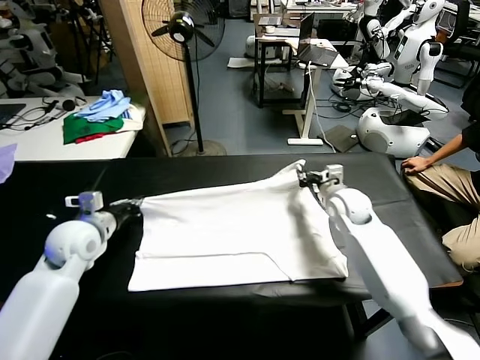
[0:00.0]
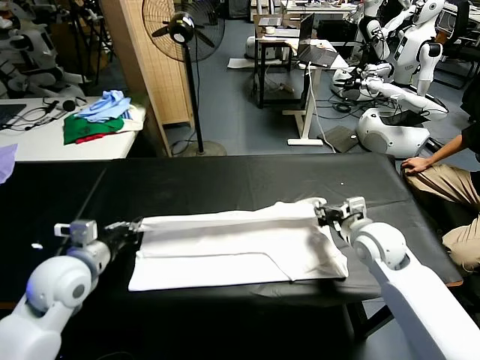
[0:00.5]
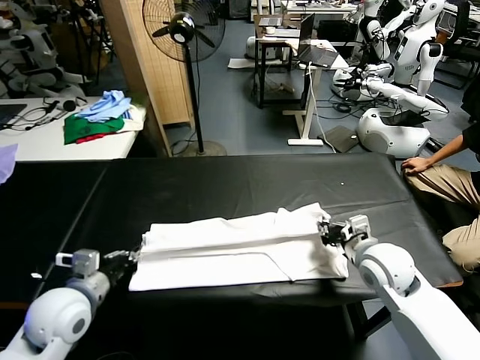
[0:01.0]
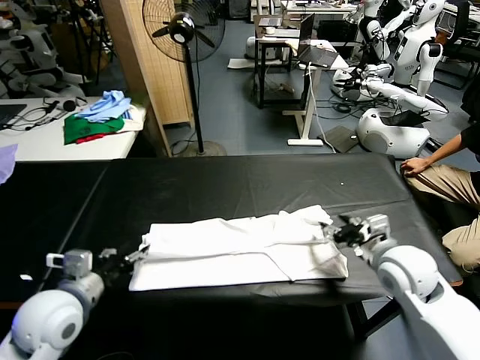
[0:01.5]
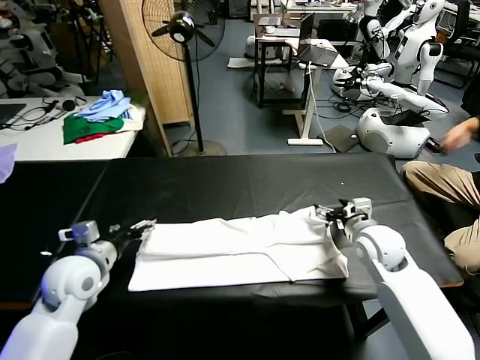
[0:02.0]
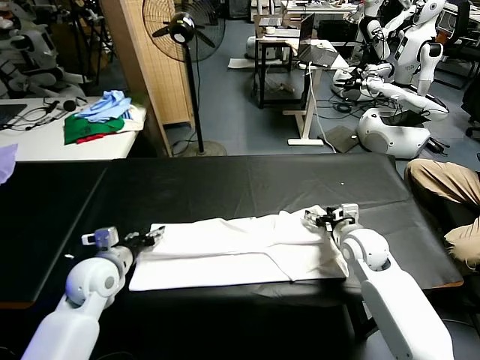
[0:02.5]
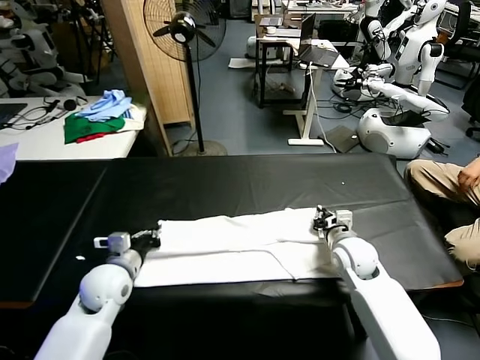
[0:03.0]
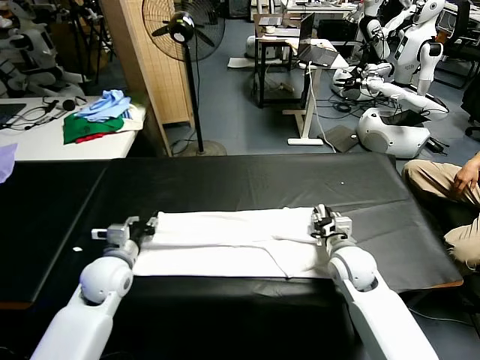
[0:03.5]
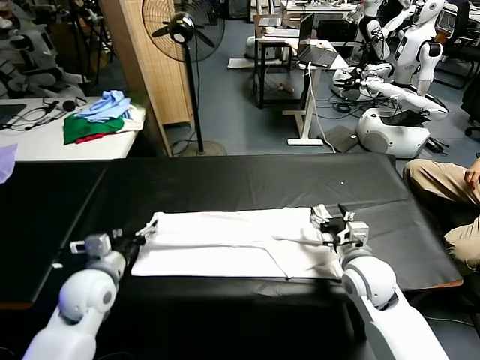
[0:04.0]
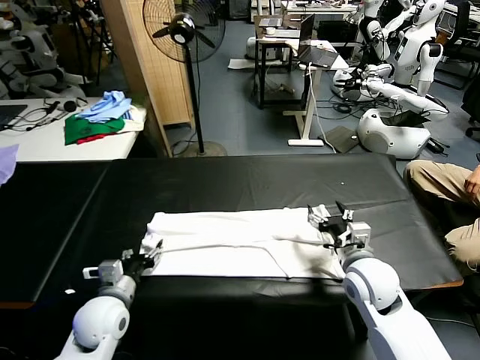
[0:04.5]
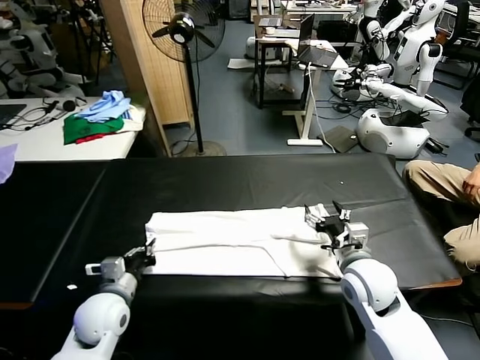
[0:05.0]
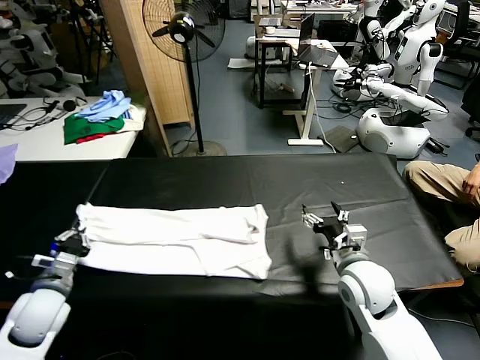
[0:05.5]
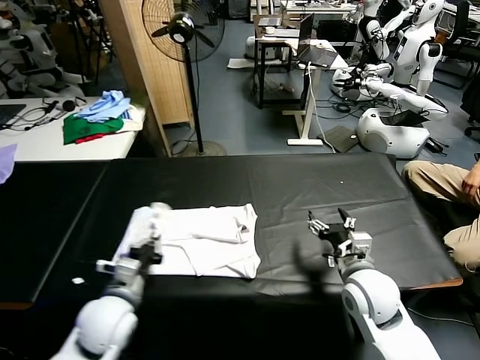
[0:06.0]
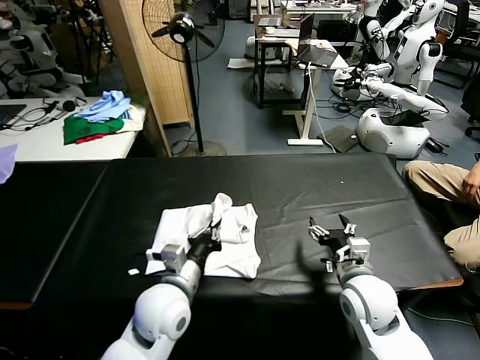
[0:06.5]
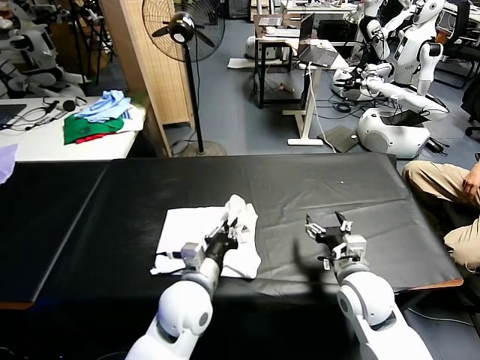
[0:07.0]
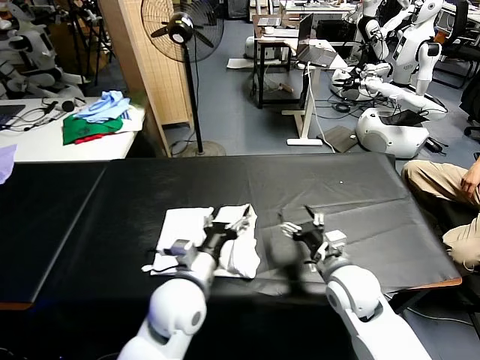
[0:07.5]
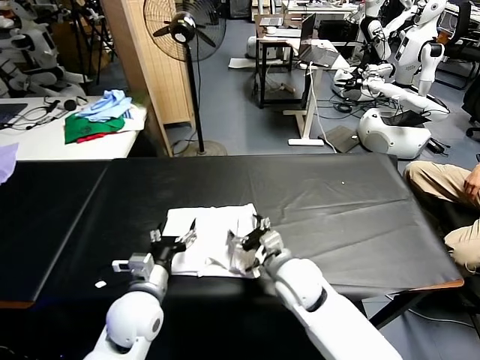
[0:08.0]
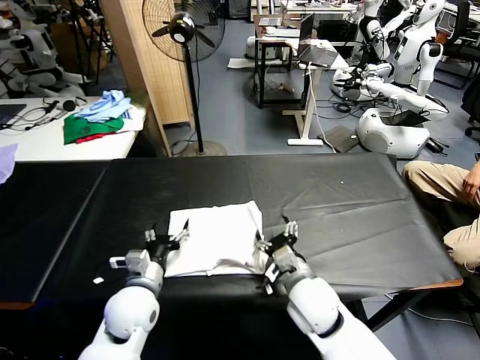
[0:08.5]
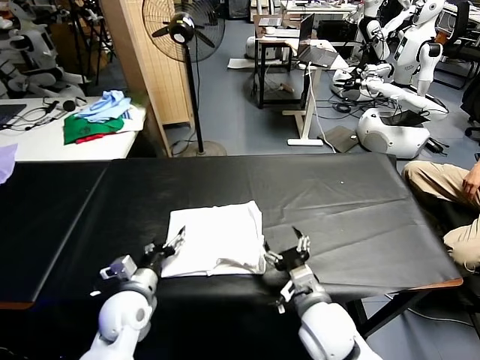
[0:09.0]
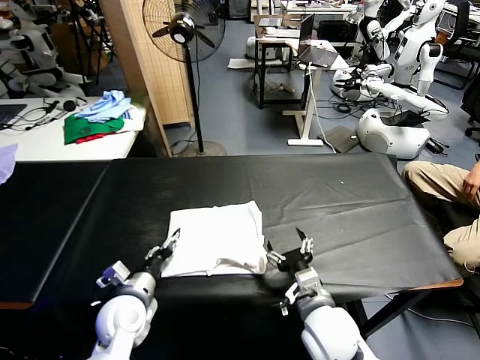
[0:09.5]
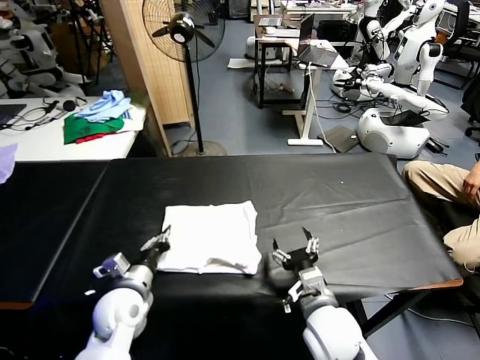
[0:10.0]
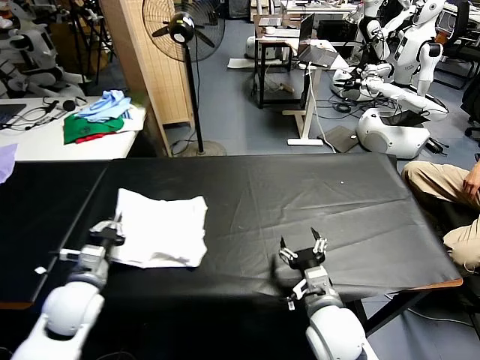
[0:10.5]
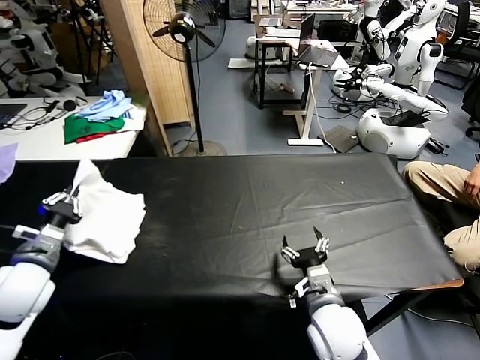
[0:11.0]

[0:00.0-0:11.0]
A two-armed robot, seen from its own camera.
Task of the whole recording: fold and organize the clothes.
Step, 0:01.5 to 0:04.5: use the left gripper to clamp the left edge of the fabric.
Step, 0:05.0 to 0:07.0: use the left gripper to drag the left edge of the fabric to the left and folds it over the right edge.
0:00.0 to 0:02.0: The right gripper travels backward and back again, approximately 10 cm each way, and opens up; the left gripper moves roughly 10 cm backward and comes back, and opens its fingers.
0:02.0 to 0:03.5: The left gripper is displaced downward by about 5 cm, and closes, then opens again, while the right gripper changes place by approximately 5 cm, and closes, then opens again.
0:03.5 to 0:05.5: The right gripper travels backward by roughly 5 cm; the left gripper heads to the left and backward, covering about 10 cm, and closes.
0:05.5 to 0:07.5: The left gripper heads to the right, covering some 30 cm, and opens.
0:07.5 to 0:09.0: The right gripper heads backward, covering about 10 cm. Meanwhile the left gripper moves to the left and downward, about 15 cm.
0:09.0 to 0:11.0: The left gripper heads to the left and upward, covering approximately 20 cm, and closes its fingers.

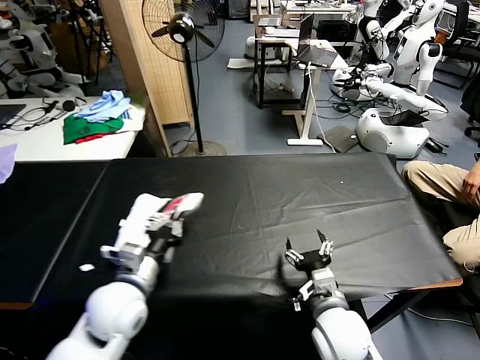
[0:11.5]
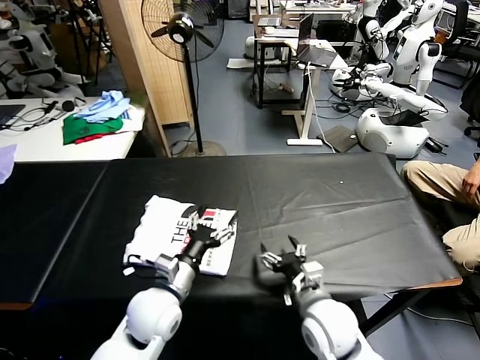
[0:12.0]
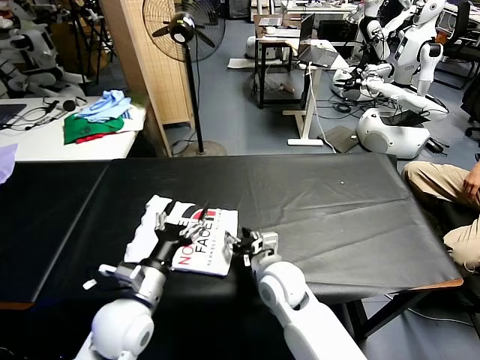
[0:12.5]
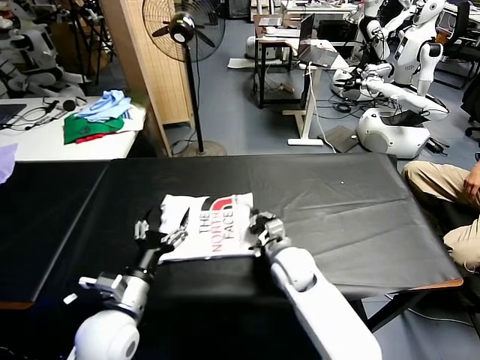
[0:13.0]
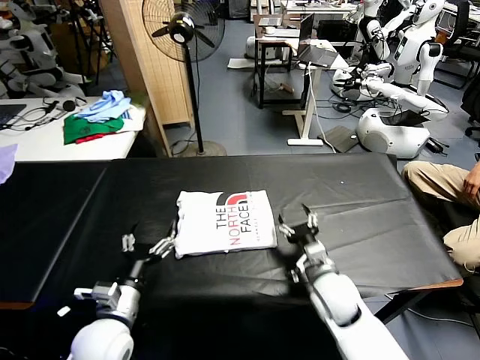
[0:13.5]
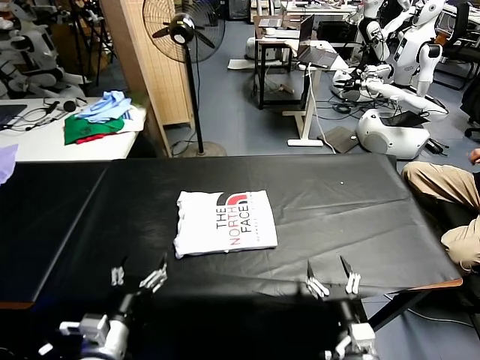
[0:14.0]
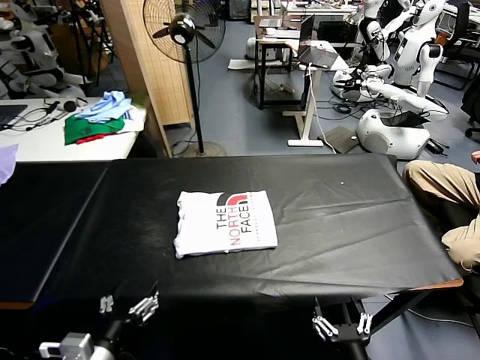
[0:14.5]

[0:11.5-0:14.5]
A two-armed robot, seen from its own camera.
Task of the whole recording: fold and organize the clothes.
Step, 0:12.0 to 0:13.0: Drag the clothes to the center of the table.
0:11.5 to 0:13.0: The right gripper travels forward and to the left by some 15 cm, and closes its fingers. The left gripper opens its fingers.
0:13.0 to 0:14.5: The left gripper is displaced backward by roughly 10 cm. The right gripper goes about 30 cm backward, and opens its fingers.

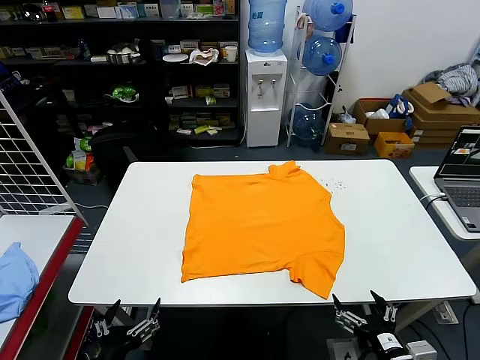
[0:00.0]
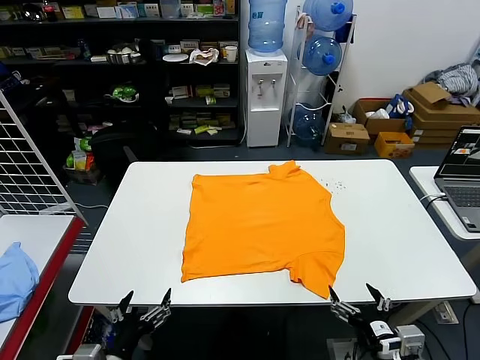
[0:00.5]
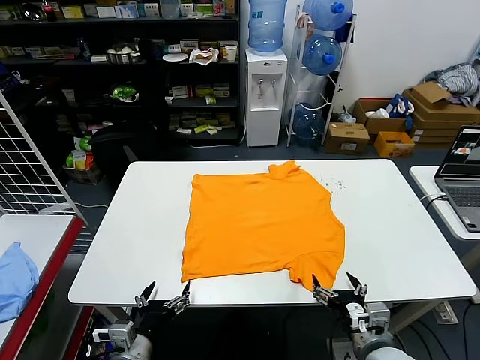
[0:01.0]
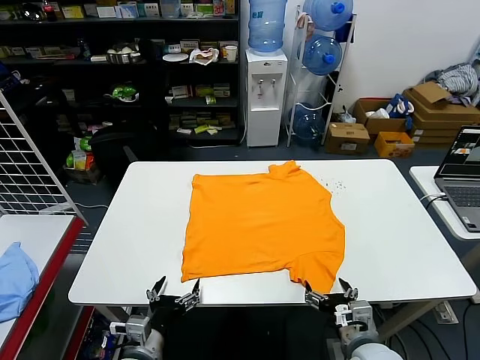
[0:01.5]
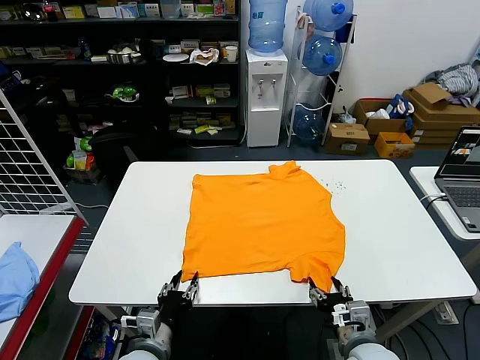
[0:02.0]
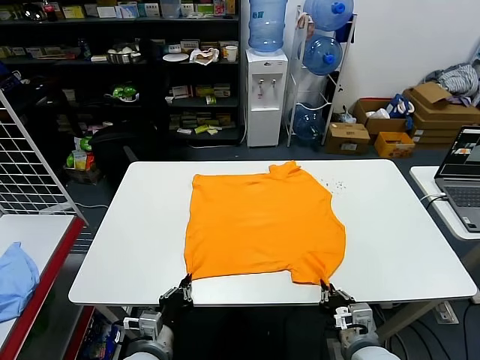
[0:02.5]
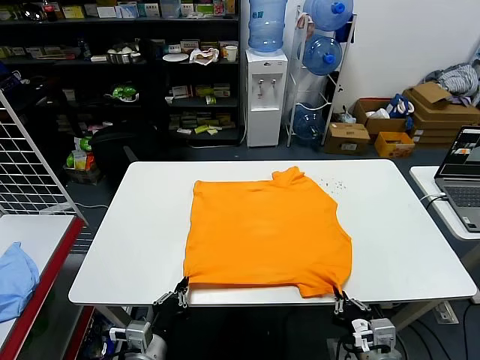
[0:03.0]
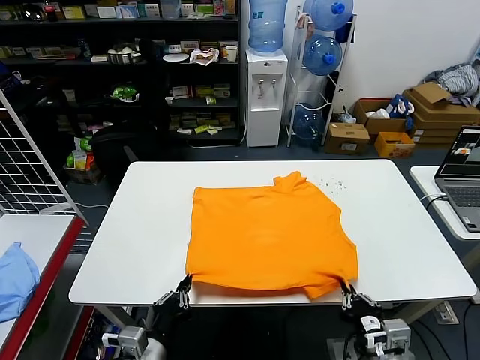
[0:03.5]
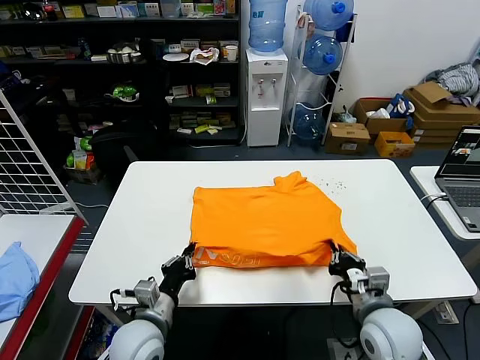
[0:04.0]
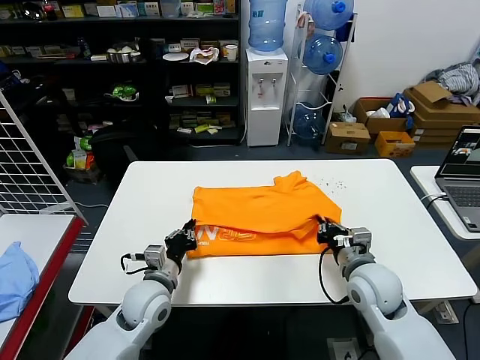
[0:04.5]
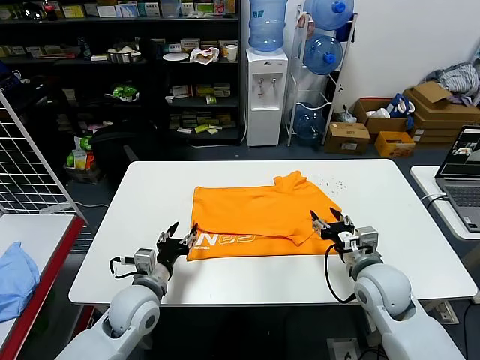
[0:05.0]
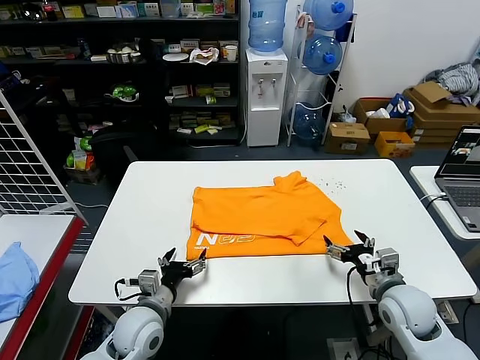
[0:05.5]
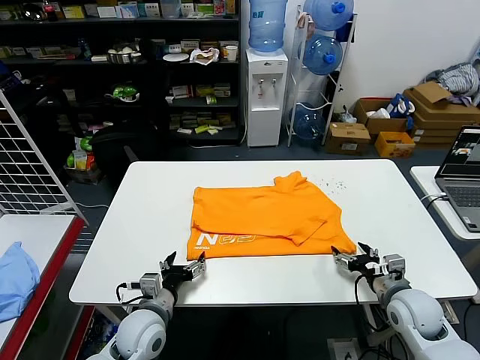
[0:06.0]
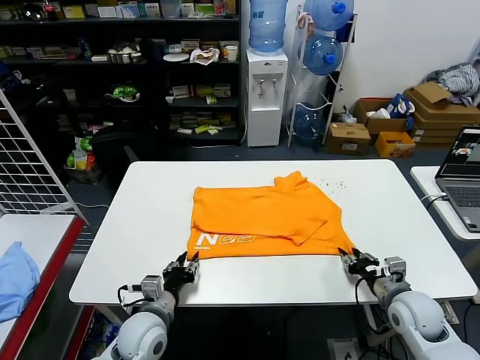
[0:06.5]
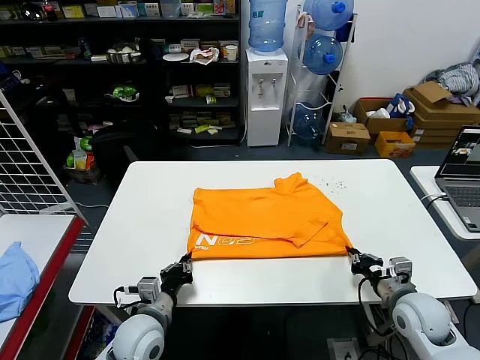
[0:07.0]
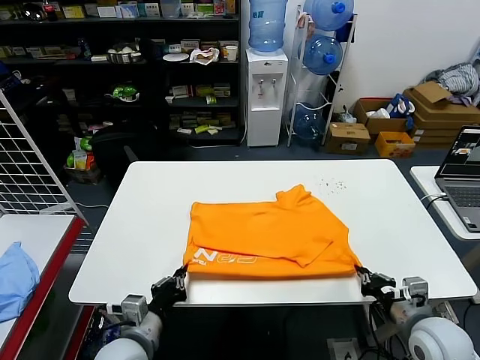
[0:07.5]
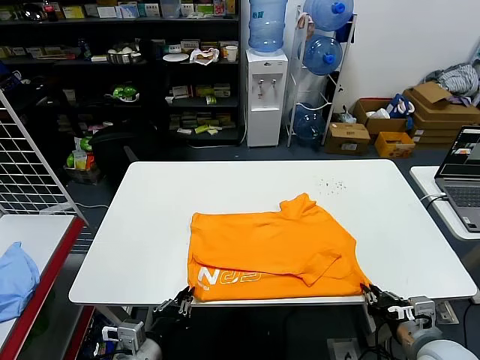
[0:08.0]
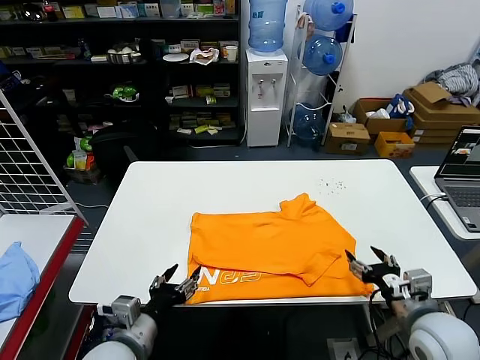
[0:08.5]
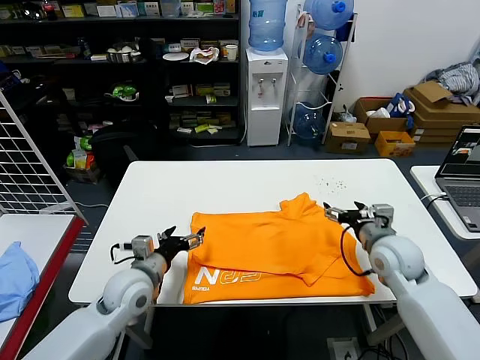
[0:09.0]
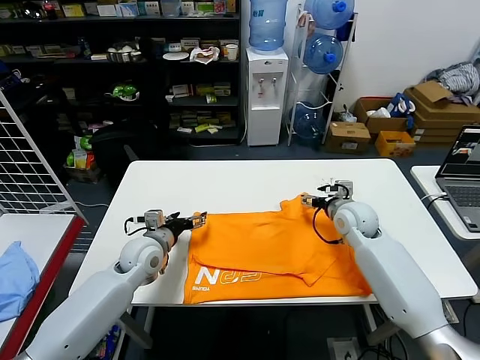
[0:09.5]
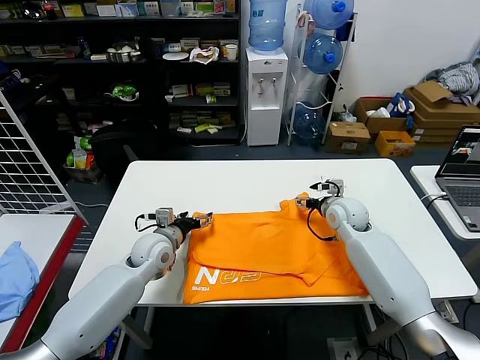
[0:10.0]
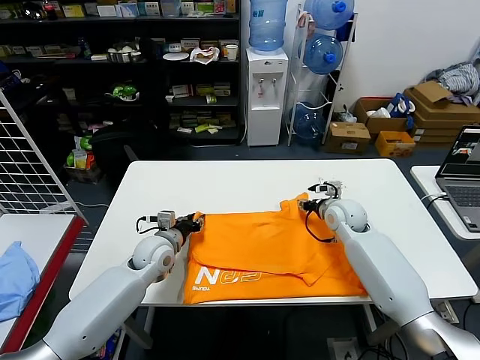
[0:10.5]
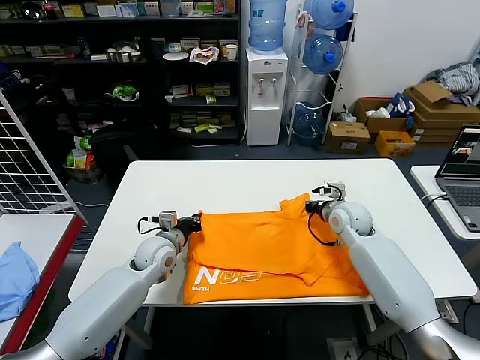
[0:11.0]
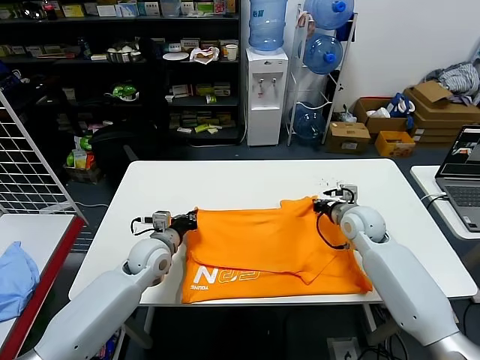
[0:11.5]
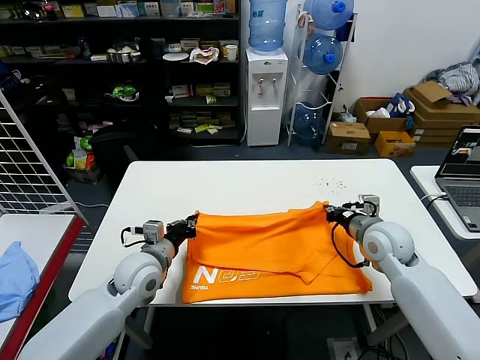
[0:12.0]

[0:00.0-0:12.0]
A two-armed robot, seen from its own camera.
Task of the whole recording: fold and organize the clothes.
Step, 0:00.0 to 0:02.0: use both grippers simultaneously to clamp the lower edge of the clothing fabric.
Step, 0:02.5 to 0:04.5: use both grippers to drag the lower edge of the fabric forward and fold it over the upper edge.
Step, 0:05.0 to 0:08.0: Drag the clothes downward with both gripper.
Step, 0:08.5 to 0:11.0: use both grippers simultaneously to clamp the upper edge of the clothing fabric.
0:02.0 to 0:04.0: The left gripper moves about 5 cm, and closes up. The right gripper goes about 10 cm forward and upward, and closes.
0:04.0 to 0:06.0: The right gripper moves to the right and downward, about 10 cm, and opens. Meanwhile the left gripper opens up.
0:06.0 to 0:08.0: Both grippers move backward and upward, about 15 cm. The left gripper closes up. The right gripper closes.
0:08.0 to 0:10.0: The two grippers go roughly 30 cm forward. The left gripper opens its fingers; the right gripper opens.
0:10.0 to 0:12.0: The right gripper travels backward by roughly 10 cm, and closes up. Meanwhile the left gripper travels backward by about 5 cm, and closes.
